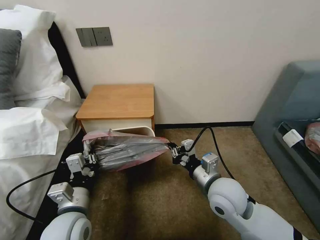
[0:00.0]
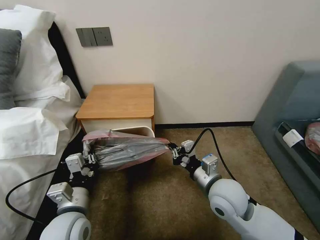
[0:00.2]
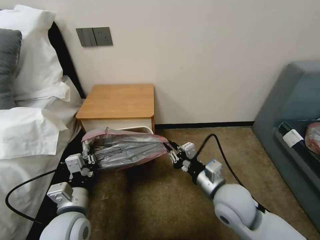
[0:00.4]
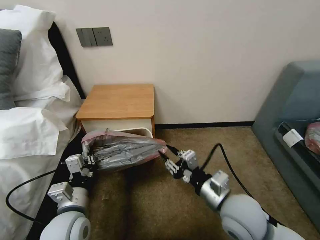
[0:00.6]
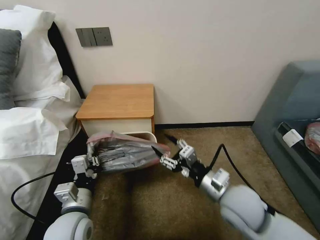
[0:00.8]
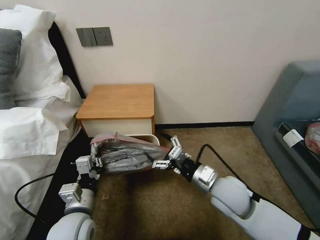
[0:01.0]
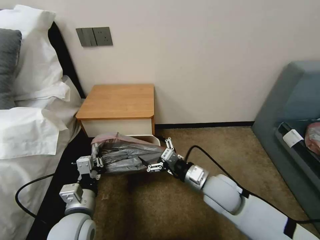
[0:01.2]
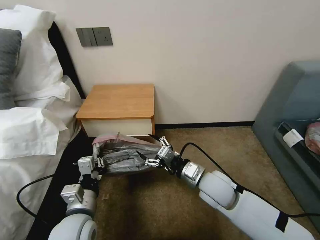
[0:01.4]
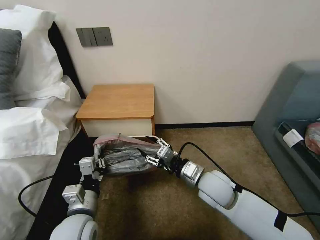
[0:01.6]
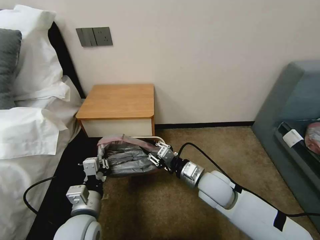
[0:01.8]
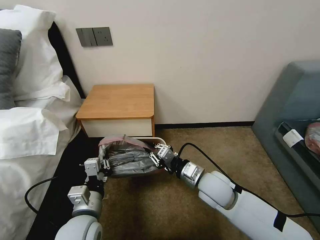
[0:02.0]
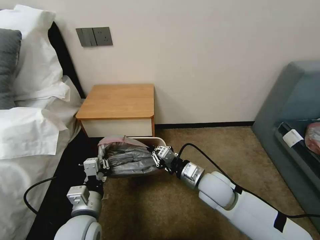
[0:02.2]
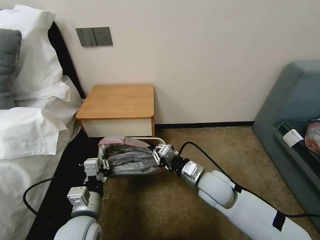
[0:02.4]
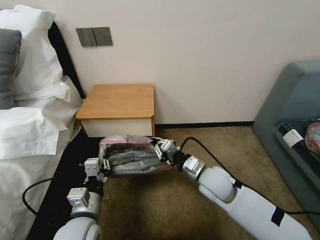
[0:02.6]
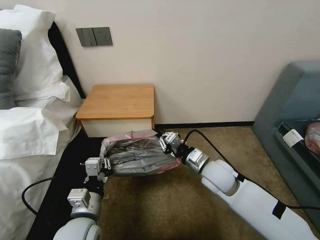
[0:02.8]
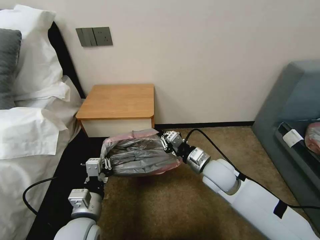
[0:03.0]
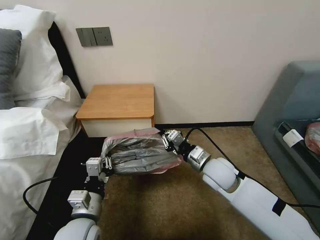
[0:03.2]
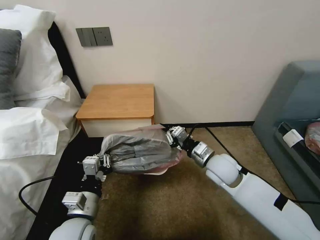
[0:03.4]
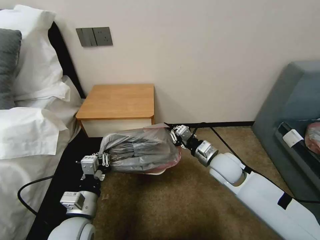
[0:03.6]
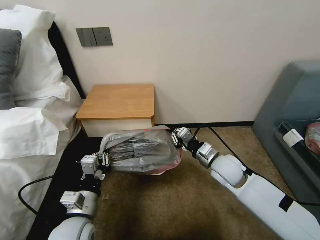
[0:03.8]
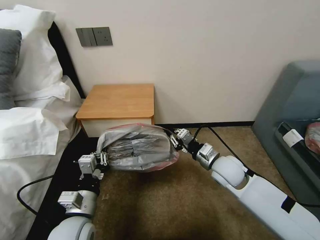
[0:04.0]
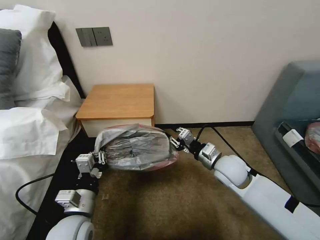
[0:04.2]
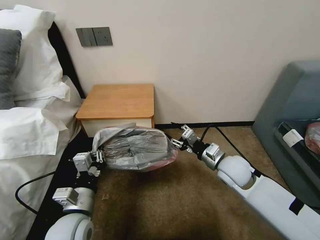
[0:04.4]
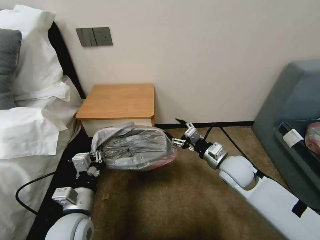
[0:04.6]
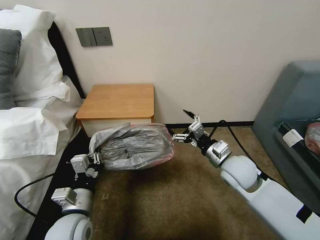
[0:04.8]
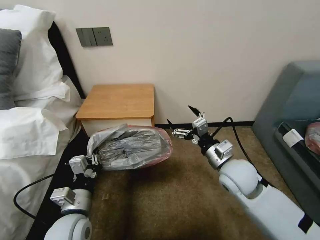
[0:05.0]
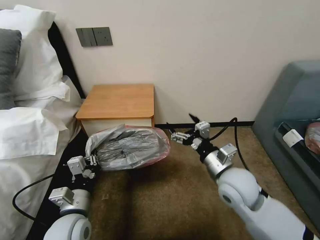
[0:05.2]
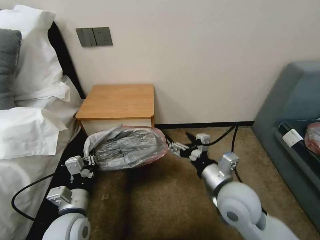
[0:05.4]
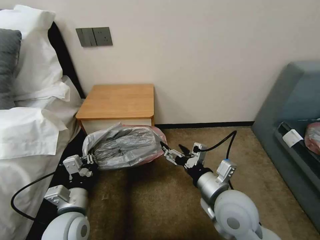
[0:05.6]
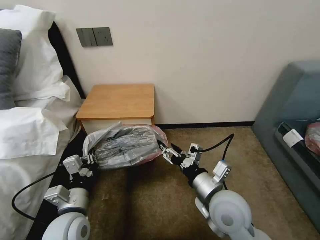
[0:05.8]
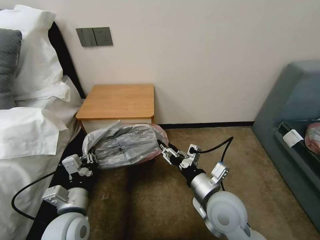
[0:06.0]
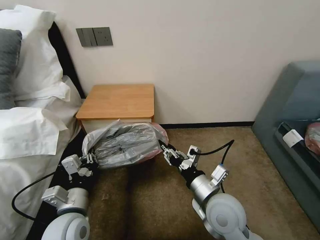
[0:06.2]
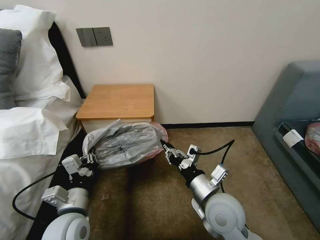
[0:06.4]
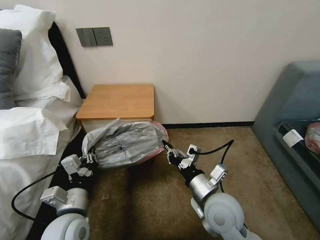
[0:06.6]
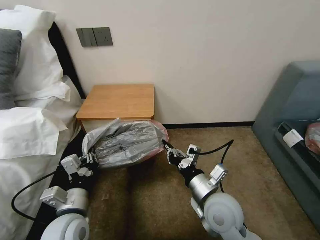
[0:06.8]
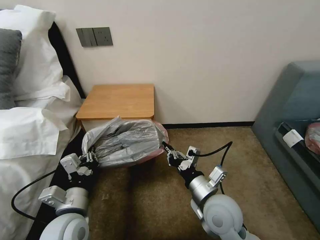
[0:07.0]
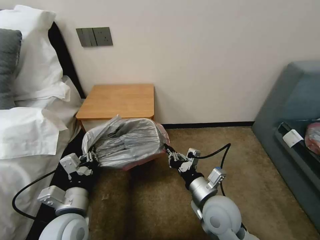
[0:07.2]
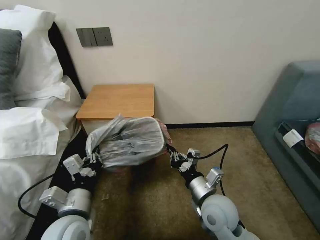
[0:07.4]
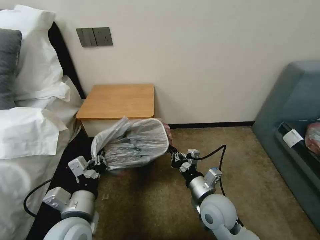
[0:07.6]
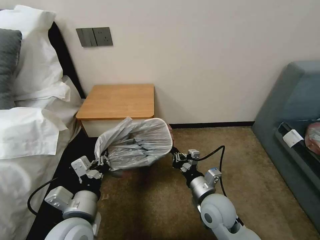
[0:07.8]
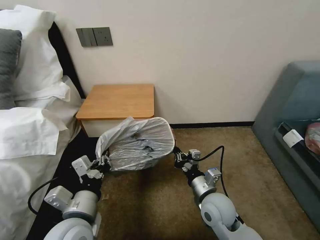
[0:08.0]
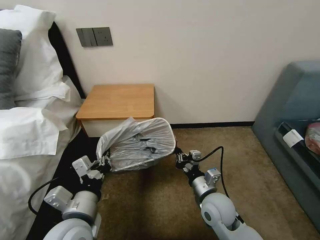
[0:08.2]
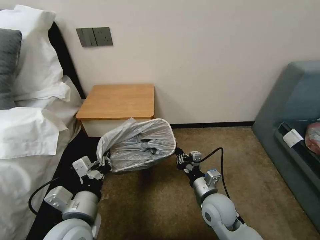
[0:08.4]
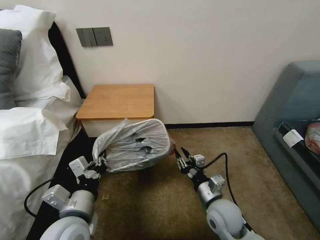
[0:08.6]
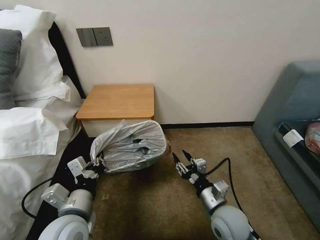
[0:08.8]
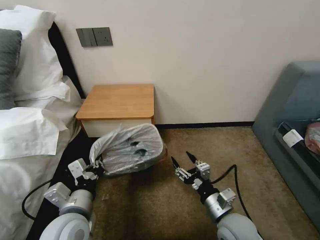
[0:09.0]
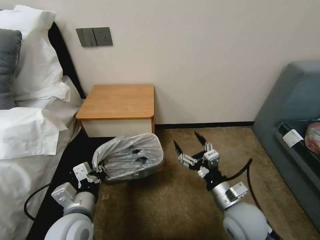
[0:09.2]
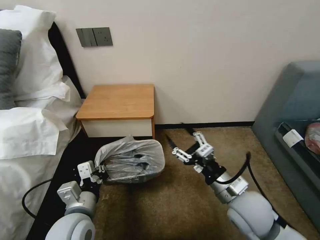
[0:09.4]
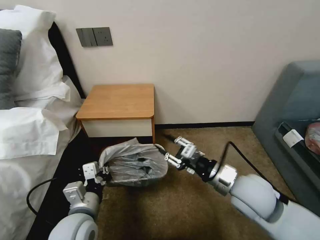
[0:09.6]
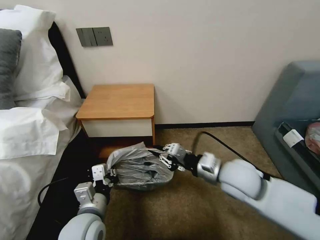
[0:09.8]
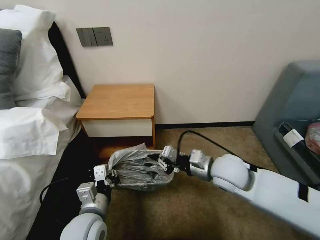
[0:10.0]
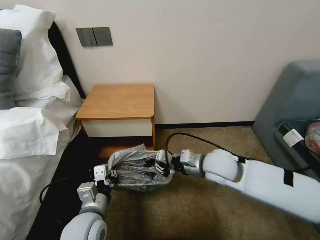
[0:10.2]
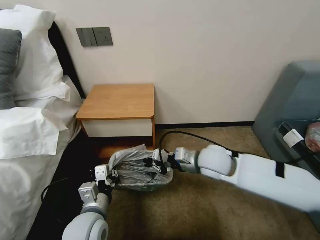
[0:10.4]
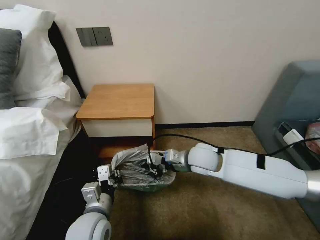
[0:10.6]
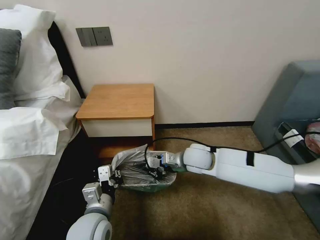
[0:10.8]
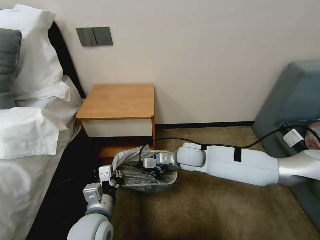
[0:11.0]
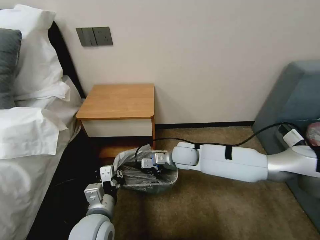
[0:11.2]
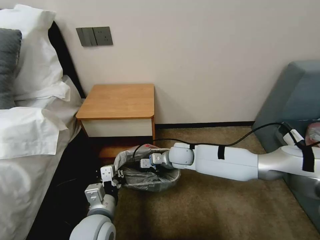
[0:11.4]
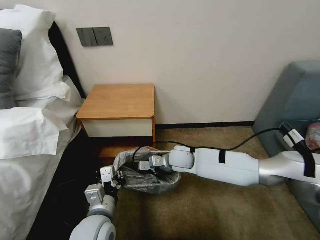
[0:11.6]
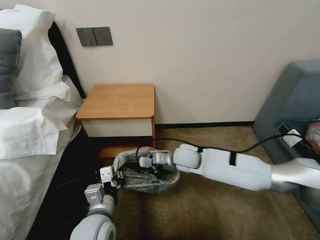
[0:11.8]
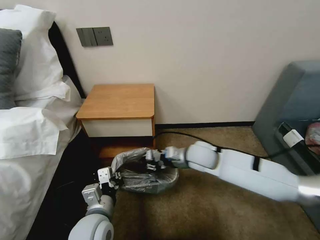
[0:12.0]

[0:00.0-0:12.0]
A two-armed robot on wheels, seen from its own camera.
Task of the whole recording: Pick up the garbage bag from the table and place it over the trash can.
0:00.0 to 0:01.6: The right gripper opens up.
0:01.6 to 0:03.0: The right gripper closes its fingers.
0:03.0 to 0:04.4: The right gripper goes some 5 cm to the right, and opens its fingers.
0:04.4 to 0:06.0: The right gripper goes some 15 cm backward and to the left, and opens, then closes again.
0:06.0 to 0:07.6: The right gripper travels downward by approximately 5 cm, and closes.
0:07.6 to 0:09.0: The right gripper moves about 5 cm, and opens.
0:09.0 to 0:10.4: The left gripper shifts by roughly 5 cm. The right gripper goes about 20 cm forward and upward, and closes up.
0:10.4 to 0:12.0: The right gripper moves approximately 10 cm downward and comes back.

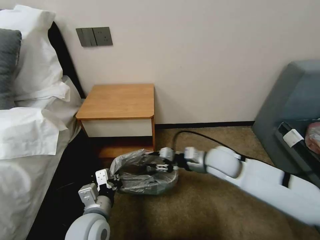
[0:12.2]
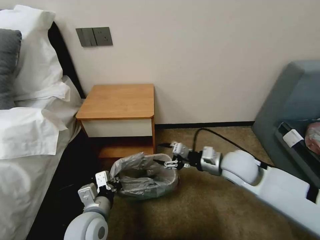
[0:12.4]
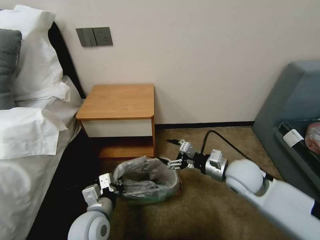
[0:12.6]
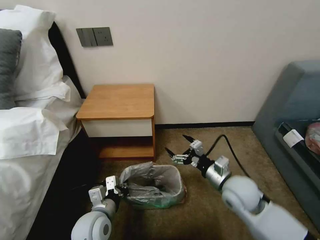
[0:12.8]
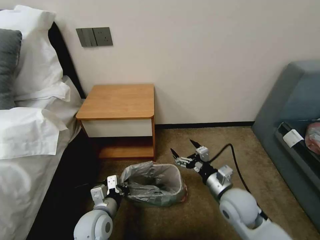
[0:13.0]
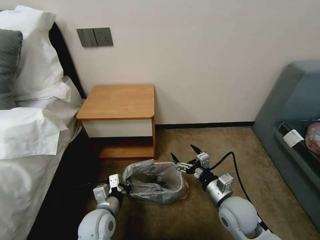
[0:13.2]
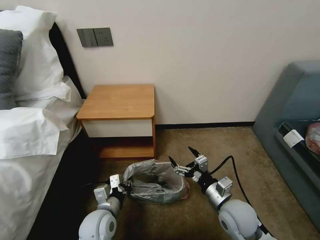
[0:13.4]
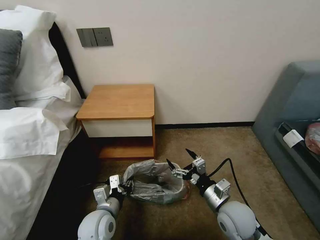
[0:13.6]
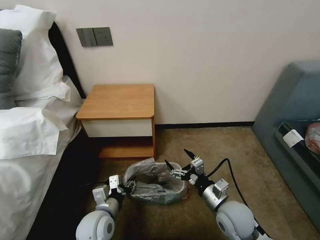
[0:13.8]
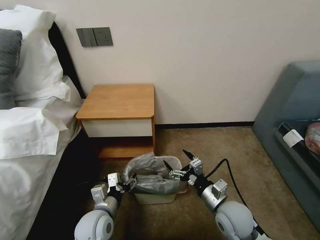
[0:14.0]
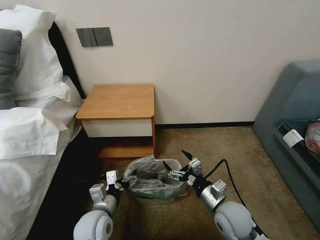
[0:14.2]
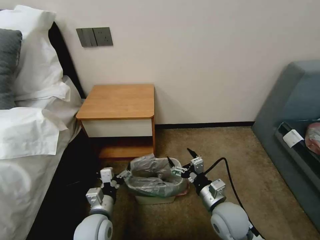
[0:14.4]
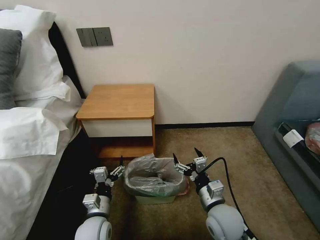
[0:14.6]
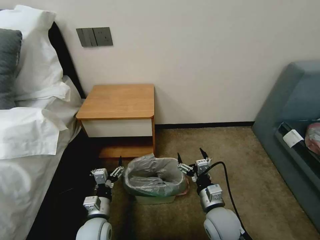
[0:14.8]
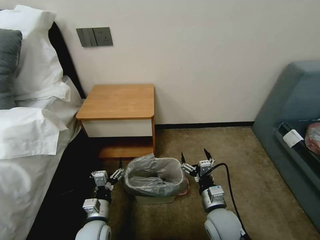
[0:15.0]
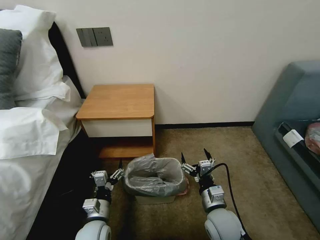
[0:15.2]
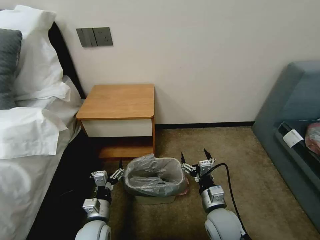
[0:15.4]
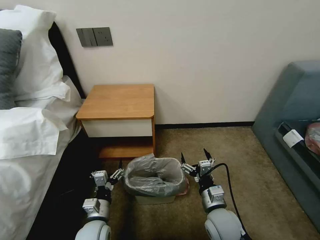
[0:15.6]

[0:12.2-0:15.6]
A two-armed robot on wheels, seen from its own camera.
Task of the whole recording: Pick up the garbage bag from the table and place it over the trash can.
0:12.2 to 0:13.8: The right gripper travels backward and downward by roughly 15 cm, and opens its fingers. The left gripper heads downward, covering roughly 5 cm, and opens.
0:13.8 to 0:15.6: The left gripper heads downward, covering some 5 cm.

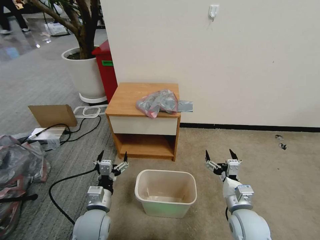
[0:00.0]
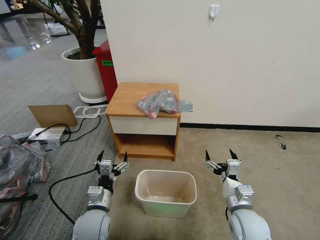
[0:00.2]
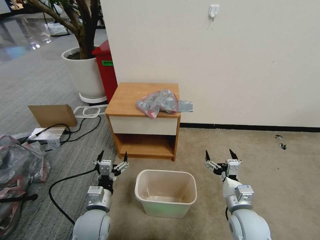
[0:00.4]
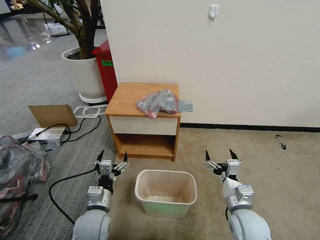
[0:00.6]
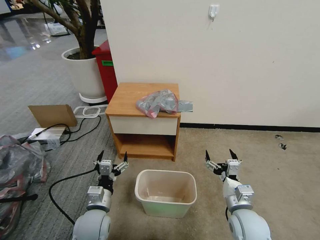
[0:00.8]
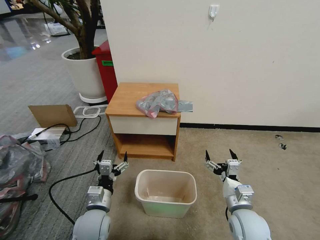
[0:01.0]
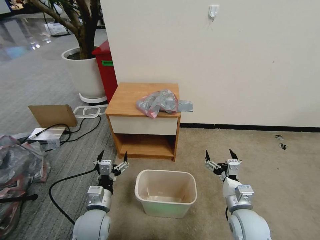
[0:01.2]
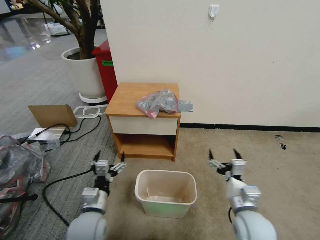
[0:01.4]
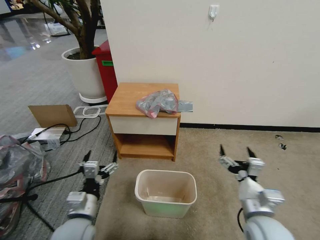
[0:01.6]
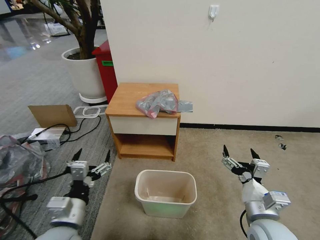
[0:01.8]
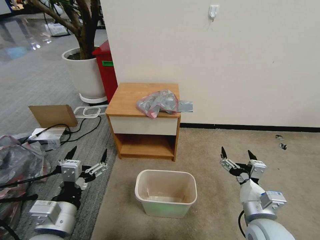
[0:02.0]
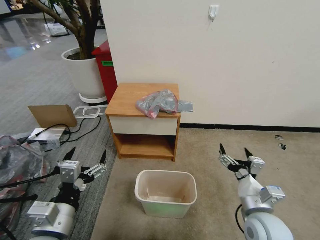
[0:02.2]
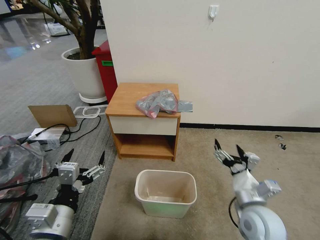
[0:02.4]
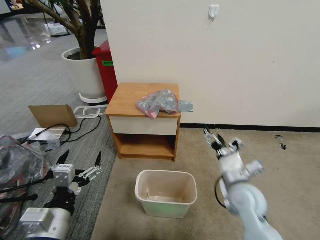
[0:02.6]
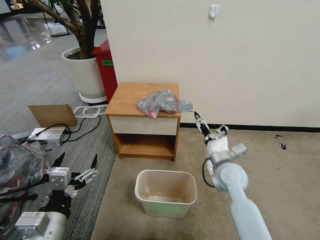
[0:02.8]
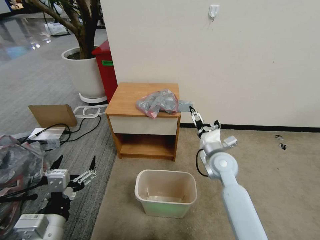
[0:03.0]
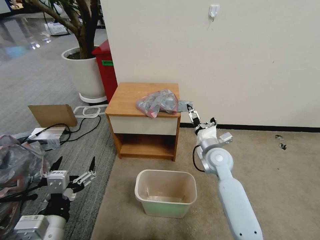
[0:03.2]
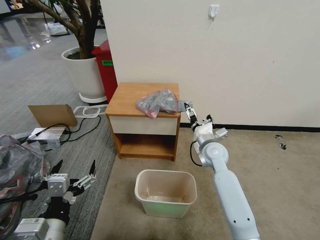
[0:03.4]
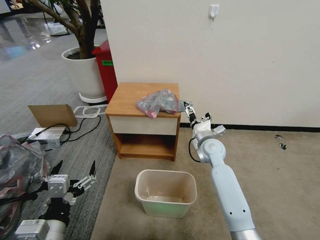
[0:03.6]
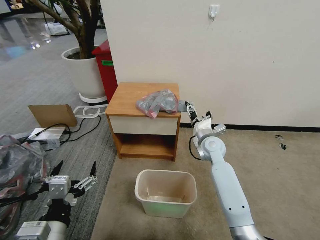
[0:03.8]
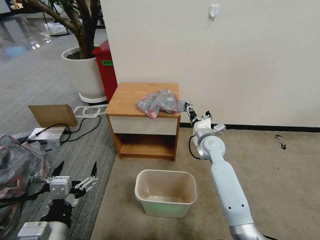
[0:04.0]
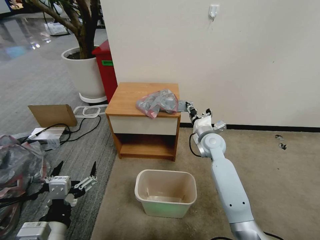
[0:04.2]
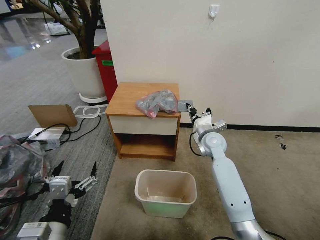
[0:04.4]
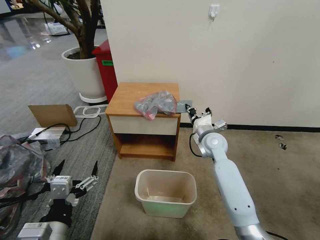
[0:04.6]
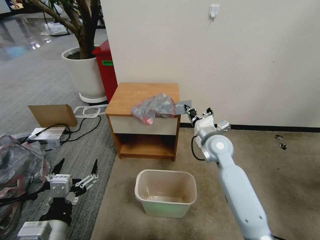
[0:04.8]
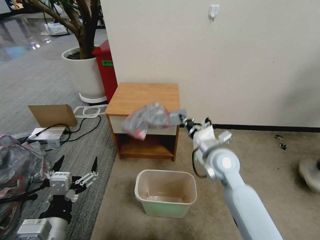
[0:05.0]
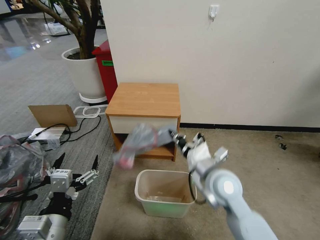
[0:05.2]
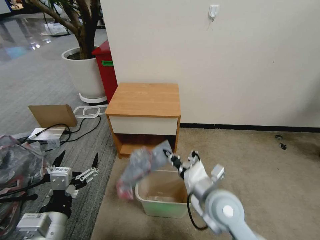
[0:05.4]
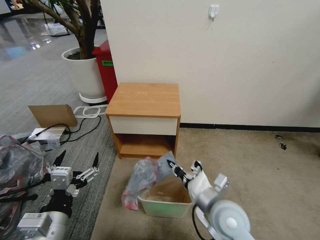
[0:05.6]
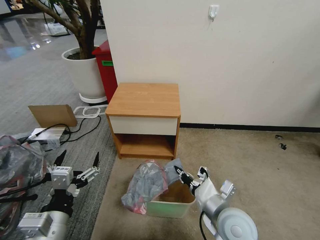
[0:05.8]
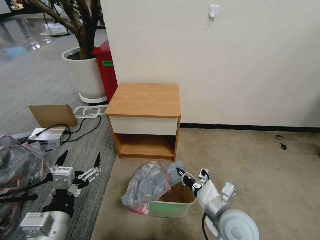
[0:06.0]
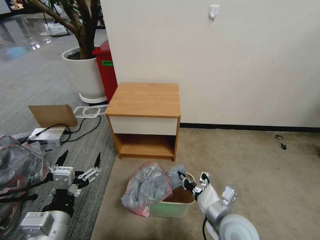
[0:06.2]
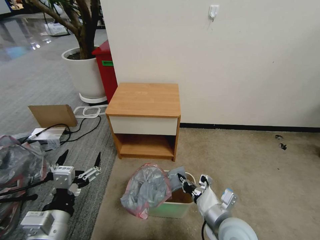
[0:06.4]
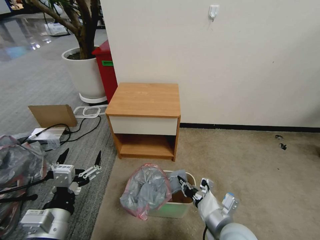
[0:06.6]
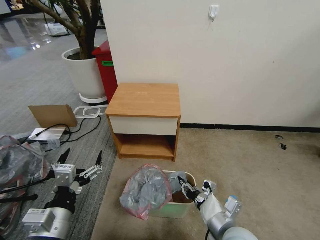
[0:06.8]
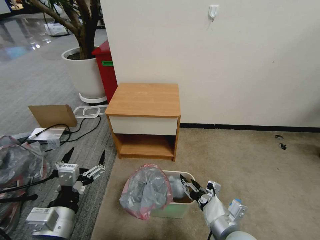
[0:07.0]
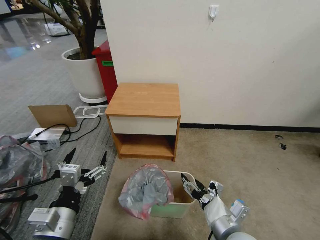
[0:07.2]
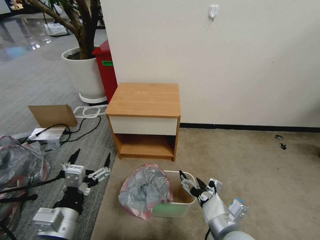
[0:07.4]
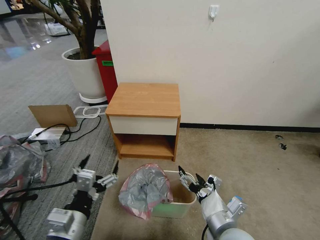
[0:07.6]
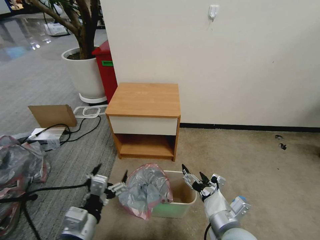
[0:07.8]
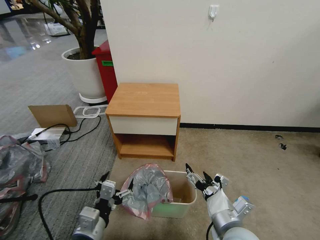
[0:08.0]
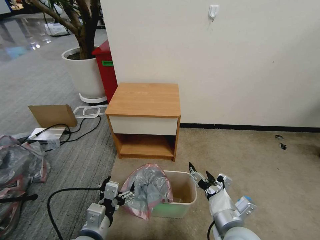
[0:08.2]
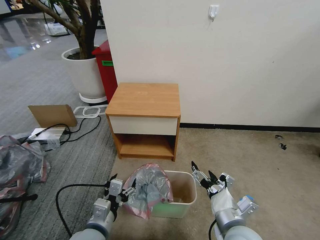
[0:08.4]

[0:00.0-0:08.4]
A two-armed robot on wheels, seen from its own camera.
Task of the whole recording: Pick up the garbage bag from the table and place it over the trash can.
0:01.4 to 0:02.8: The right gripper moves forward and upward, about 15 cm; the left gripper goes roughly 15 cm upward and backward.
0:02.8 to 0:04.2: The right gripper shifts approximately 15 cm forward, and closes up.
0:04.2 to 0:05.6: The right gripper shifts roughly 25 cm backward.
0:05.6 to 0:07.0: The right gripper shifts some 5 cm backward, and opens up.
0:07.0 to 0:08.4: The left gripper travels downward and to the right by about 10 cm. Meanwhile the right gripper opens its fingers.
